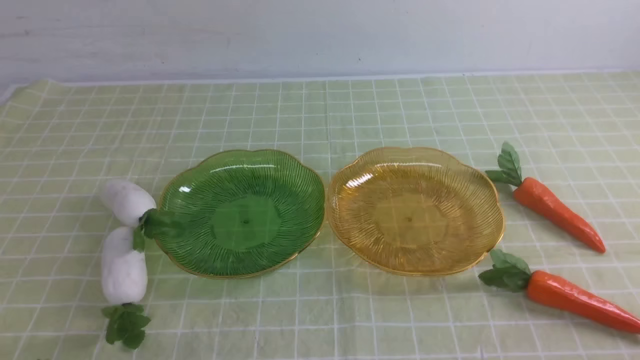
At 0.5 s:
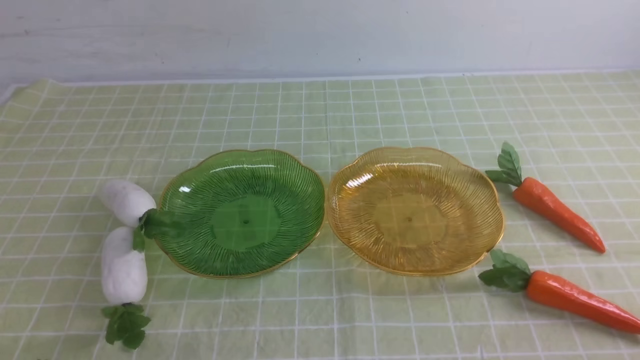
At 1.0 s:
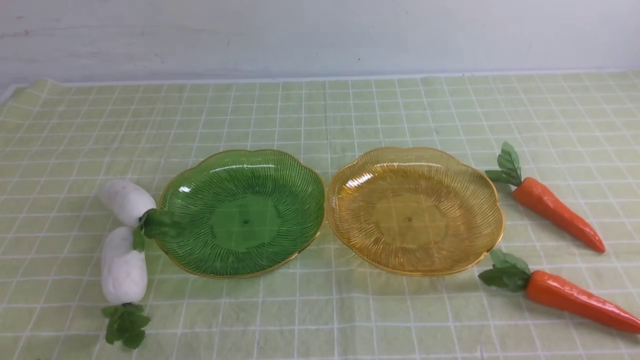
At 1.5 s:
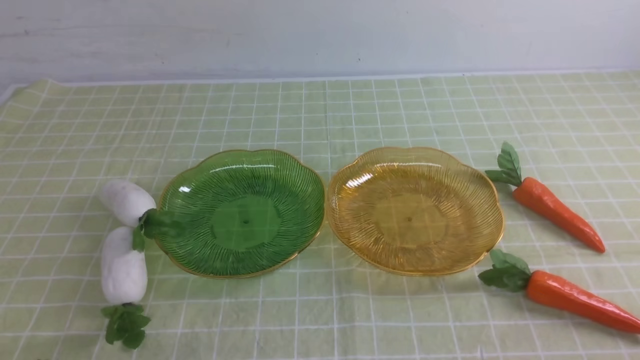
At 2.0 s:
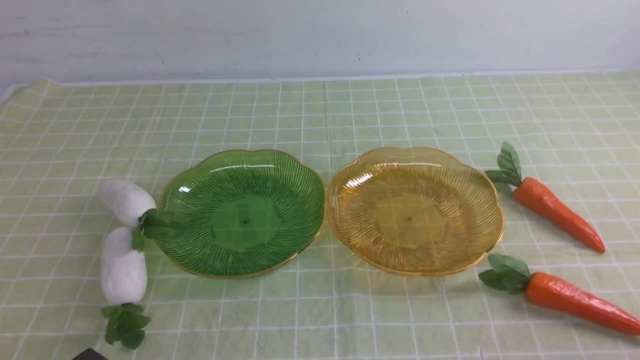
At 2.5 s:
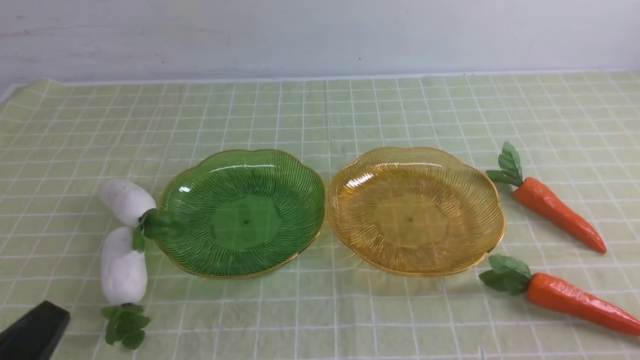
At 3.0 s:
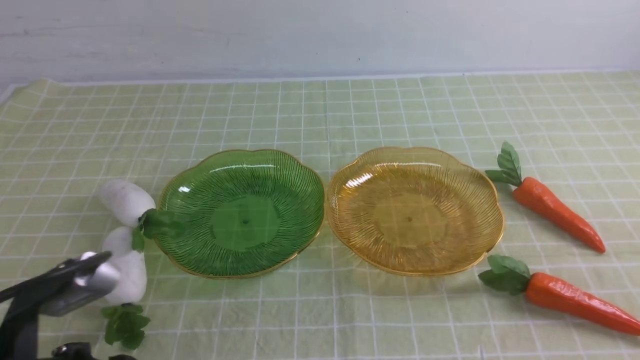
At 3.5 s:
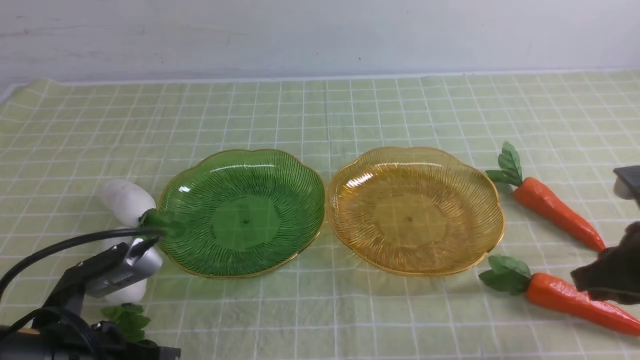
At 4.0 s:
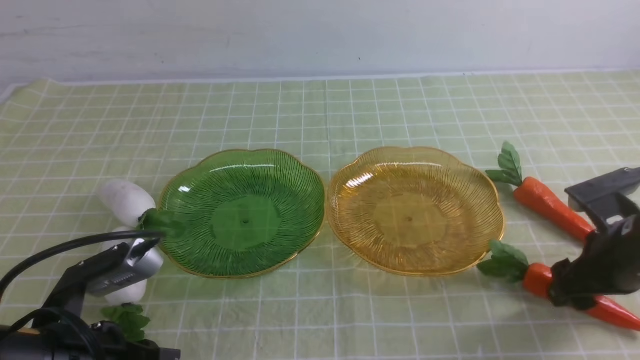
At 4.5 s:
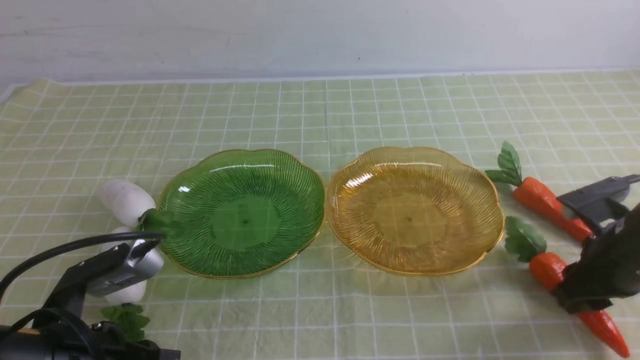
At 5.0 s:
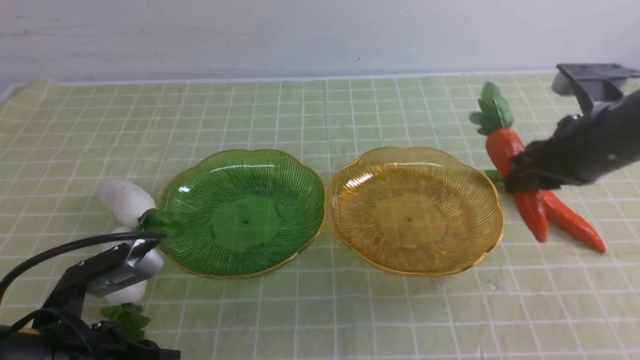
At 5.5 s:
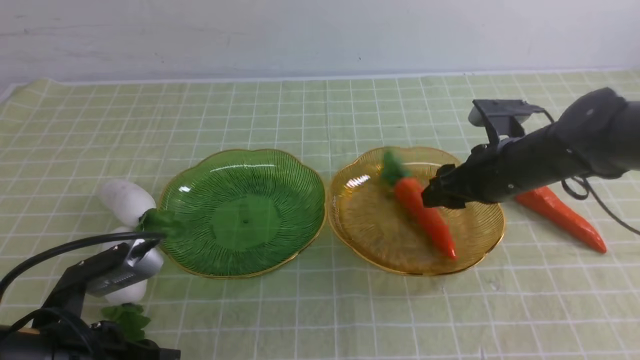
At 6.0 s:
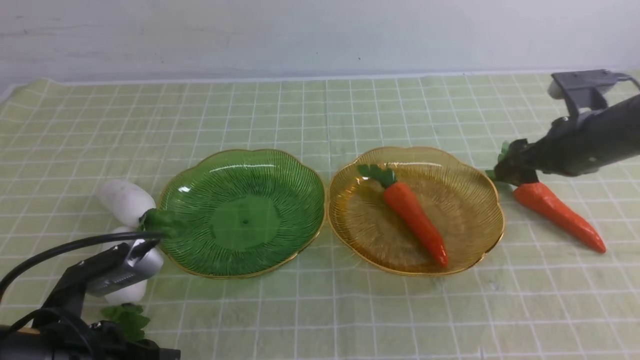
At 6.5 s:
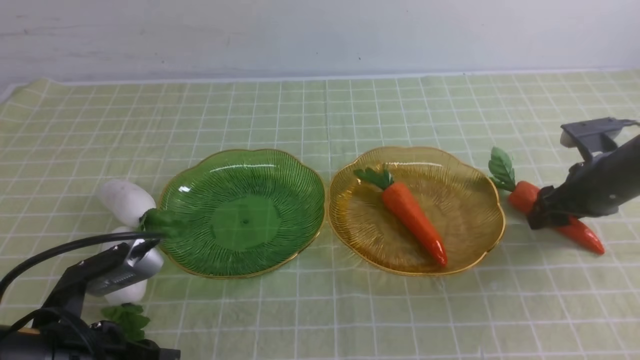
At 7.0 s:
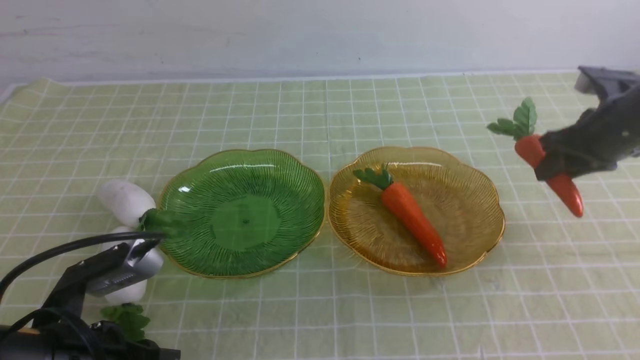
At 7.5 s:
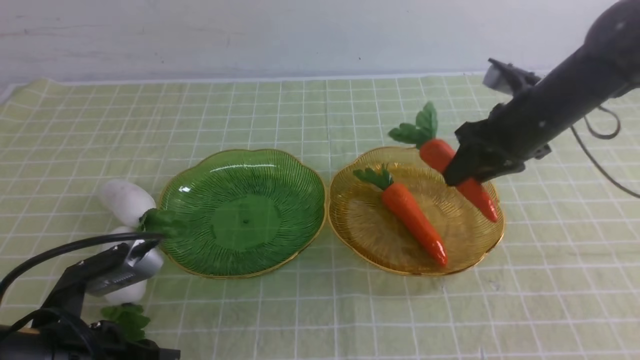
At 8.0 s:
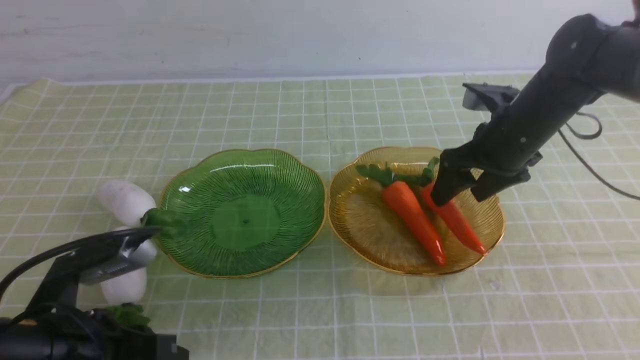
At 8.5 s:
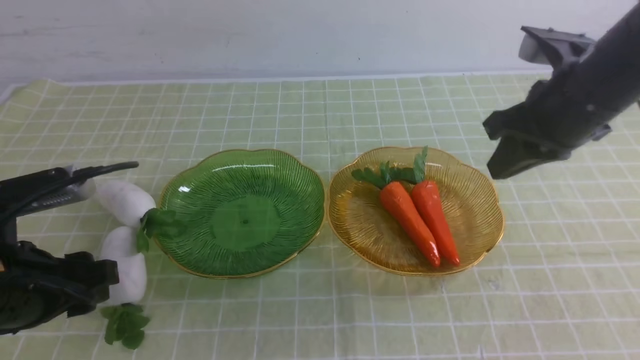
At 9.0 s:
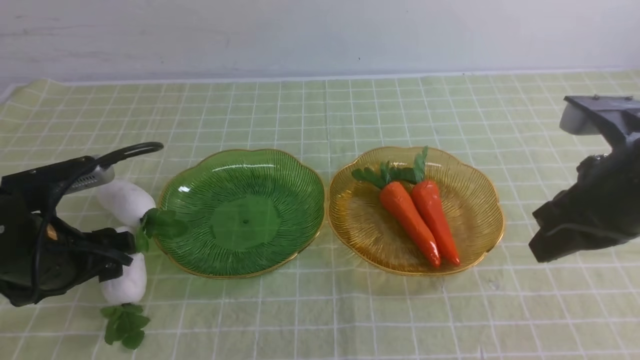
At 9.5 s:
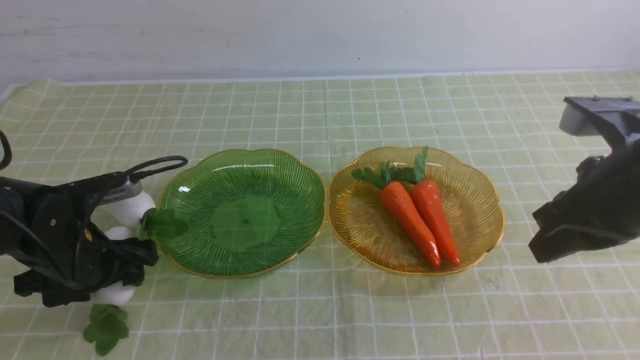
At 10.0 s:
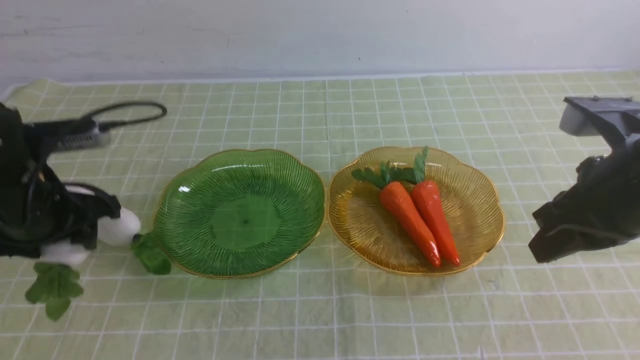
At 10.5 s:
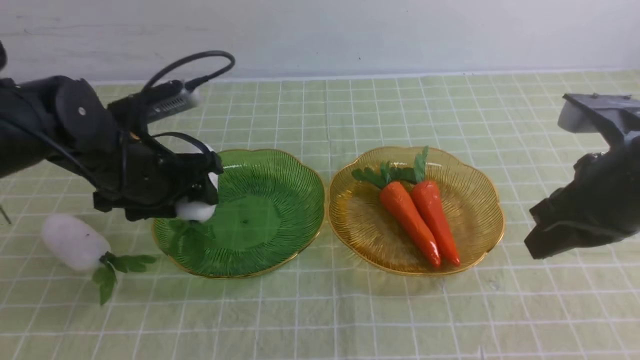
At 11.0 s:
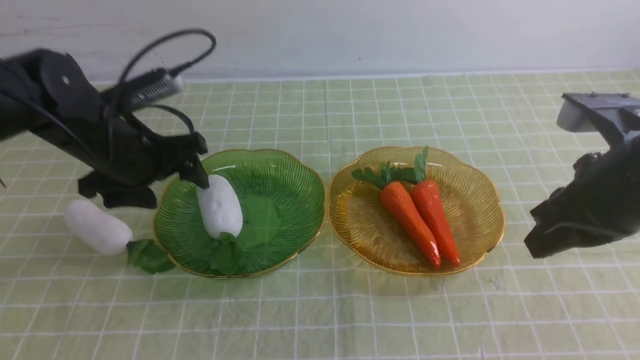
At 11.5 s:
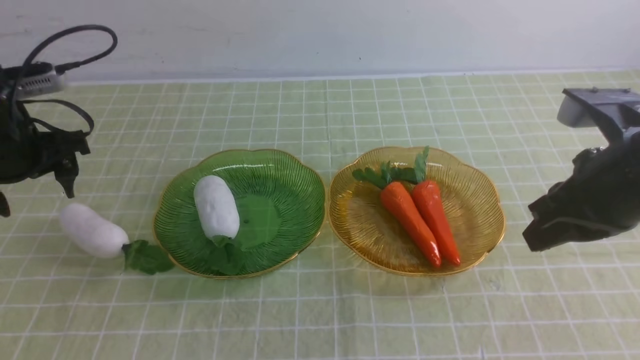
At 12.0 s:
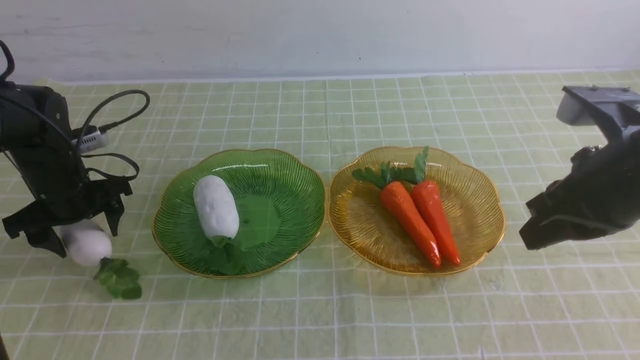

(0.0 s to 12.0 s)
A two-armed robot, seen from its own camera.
Step, 0.0 s - 5.5 s: use the right arm to grab a carrot and put it into the right plate.
Step, 6.0 s - 7.5 s: use the right arm to grab a carrot and put it into the right plate.
2.0 s - 4.0 s: The left gripper shifts approximately 10 cm forward. Meanwhile the right gripper goes about 20 cm forward, and opens up.
4.0 s - 6.0 s: The right gripper is displaced forward by approximately 10 cm, and closes, then reopens.
6.0 s - 8.0 s: The right gripper goes some 10 cm to the left, and closes, then reopens.
8.0 s - 10.0 s: The left gripper is displaced forward by roughly 15 cm, and opens its fingers, while the right gripper goes roughly 15 cm backward and upward, and closes up.
10.0 s - 12.0 s: The left gripper is displaced forward, downward and to the left by roughly 15 cm.

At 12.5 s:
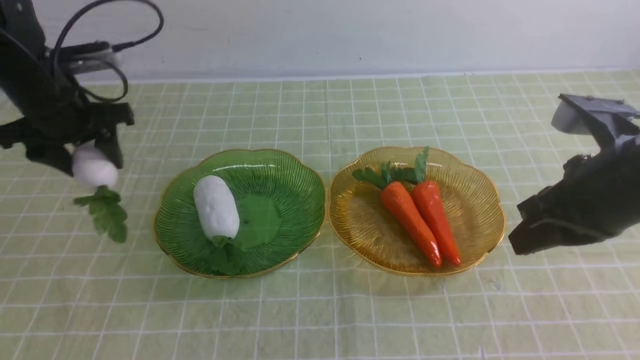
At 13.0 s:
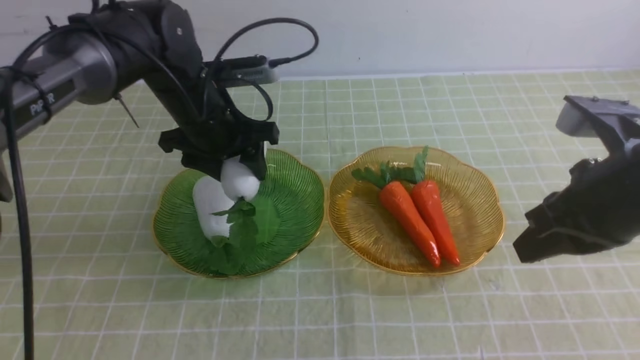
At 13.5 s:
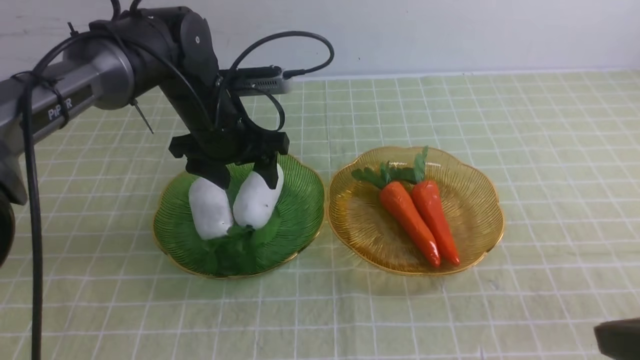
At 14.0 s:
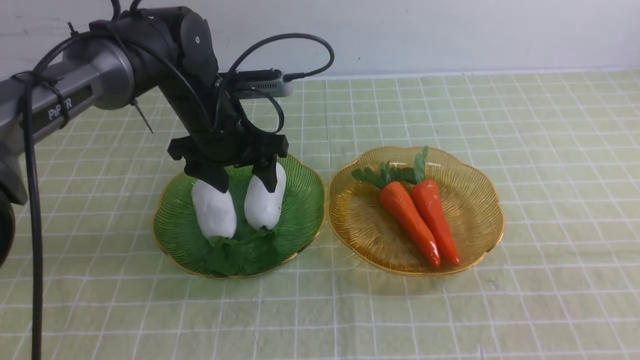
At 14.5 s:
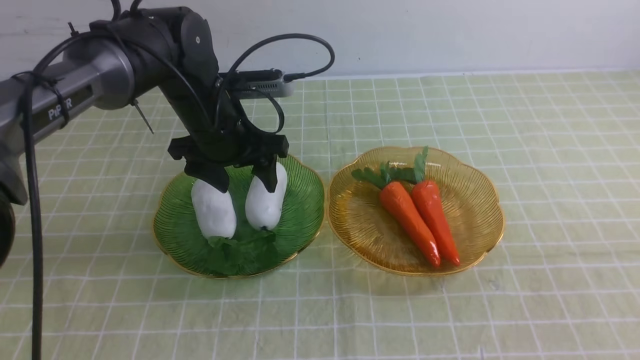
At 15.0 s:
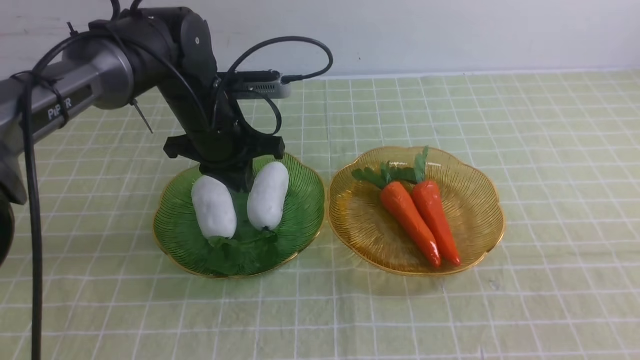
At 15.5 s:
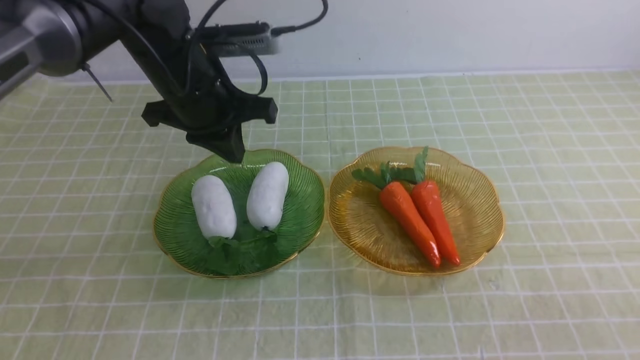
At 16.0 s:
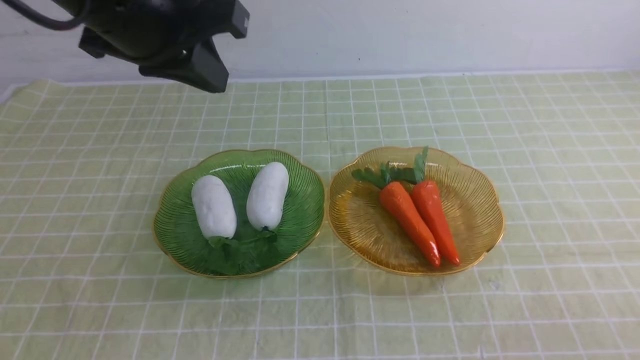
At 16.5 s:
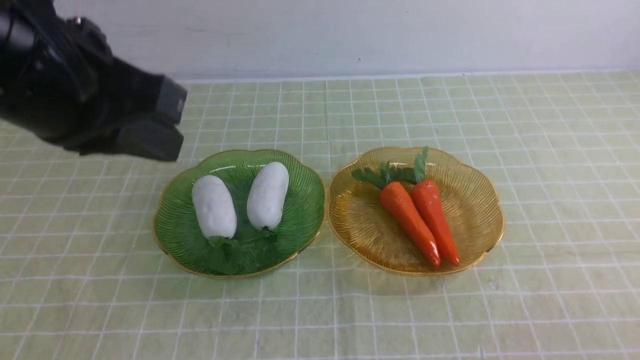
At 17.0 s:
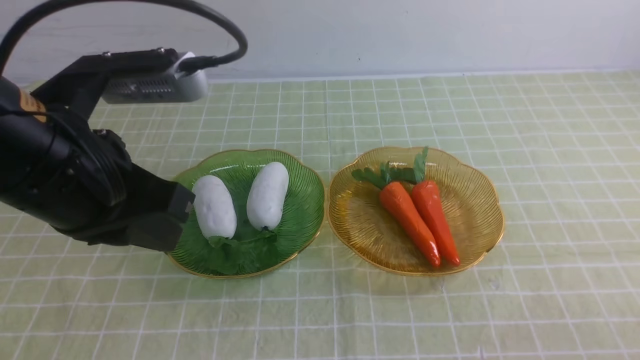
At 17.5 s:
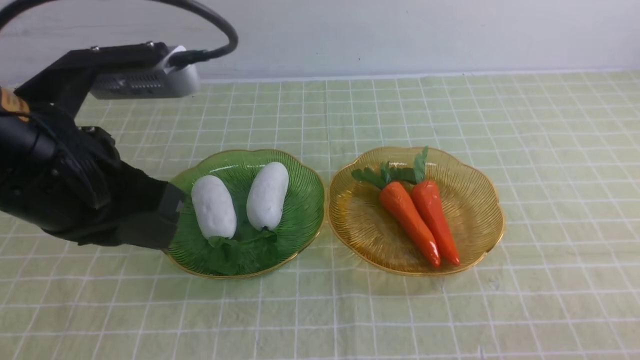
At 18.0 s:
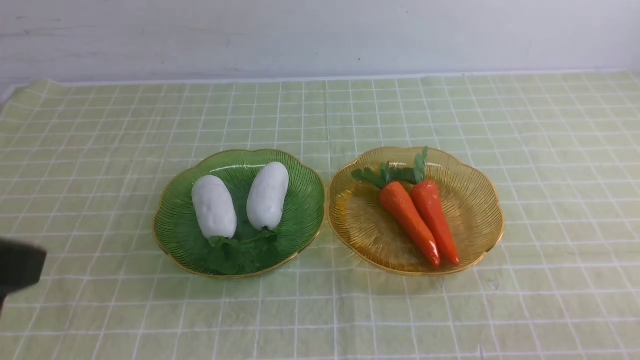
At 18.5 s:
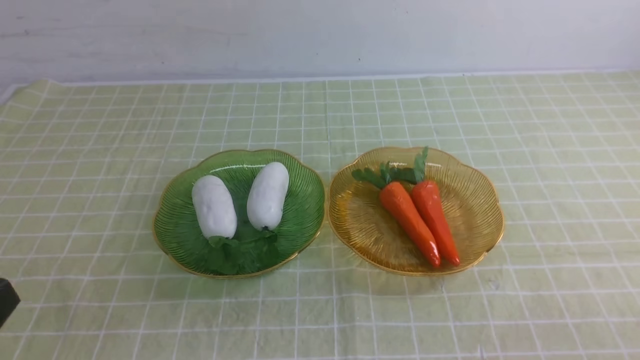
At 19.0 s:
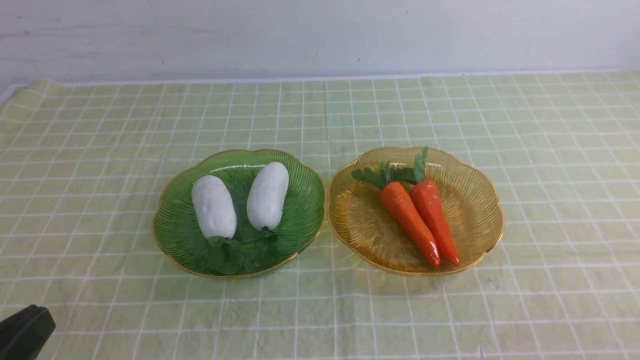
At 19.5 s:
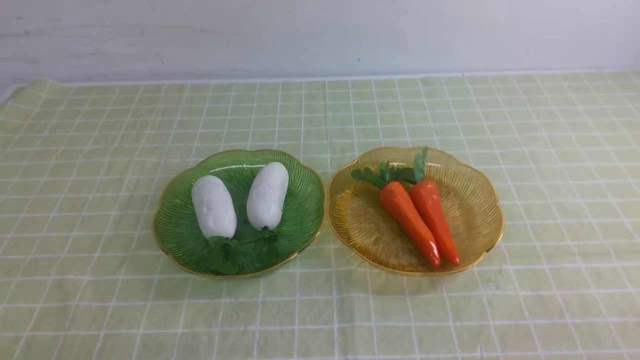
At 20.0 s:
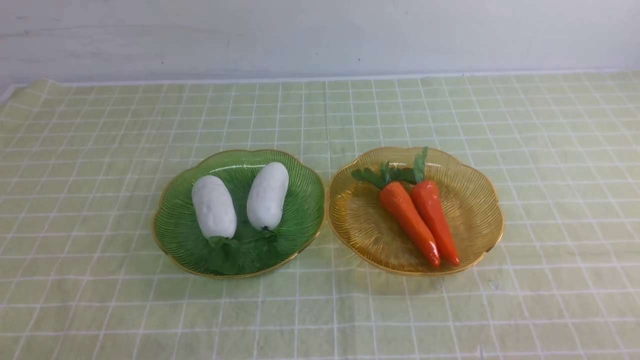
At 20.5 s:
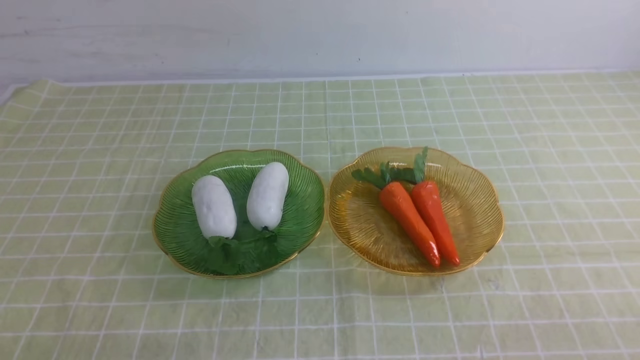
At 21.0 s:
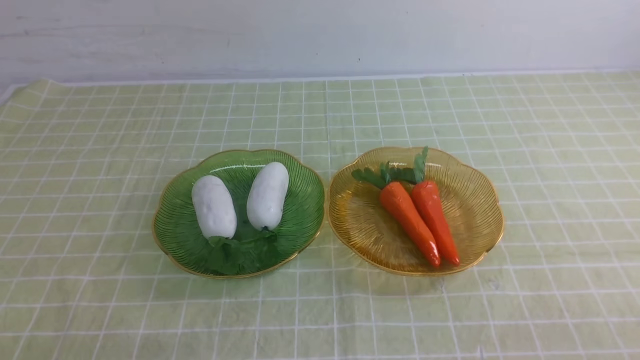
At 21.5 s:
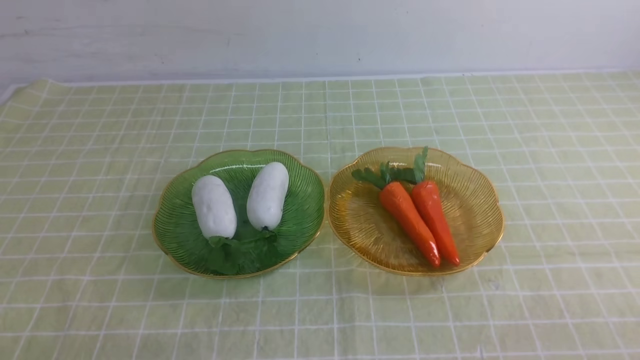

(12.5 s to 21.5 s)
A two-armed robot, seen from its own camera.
12.5 s - 14.5 s: The right gripper goes some 15 cm backward. The left gripper shifts some 15 cm to the right.
14.5 s - 17.0 s: The left gripper travels backward and upward by about 25 cm, and closes. The right gripper shifts roughly 10 cm downward.
17.0 s - 19.5 s: The left gripper is displaced downward, backward and to the left by about 25 cm.
19.5 s - 21.5 s: The two grippers keep their place.
